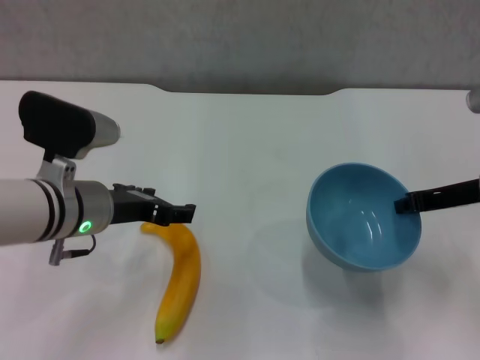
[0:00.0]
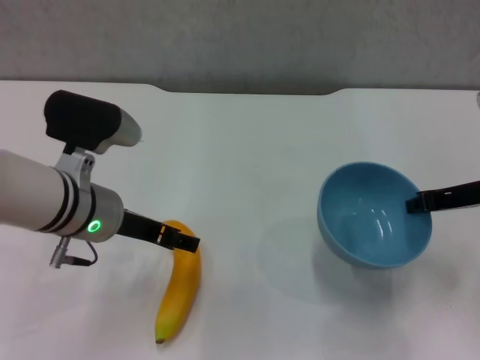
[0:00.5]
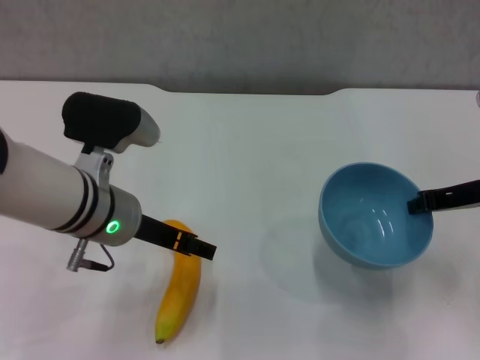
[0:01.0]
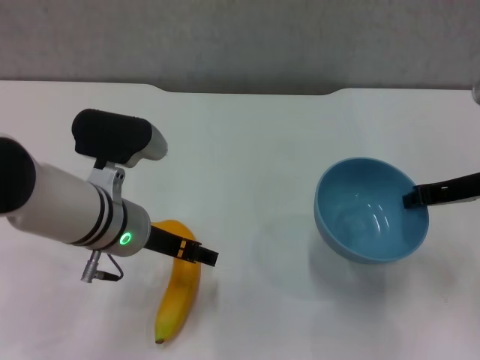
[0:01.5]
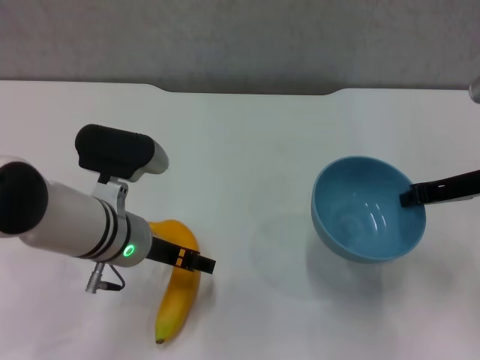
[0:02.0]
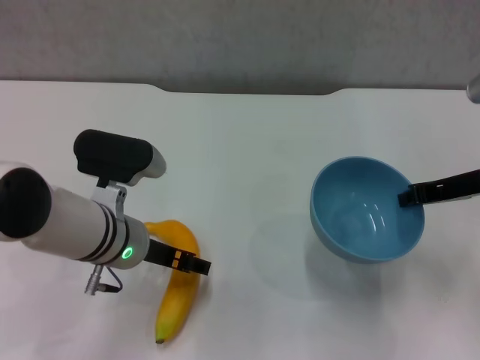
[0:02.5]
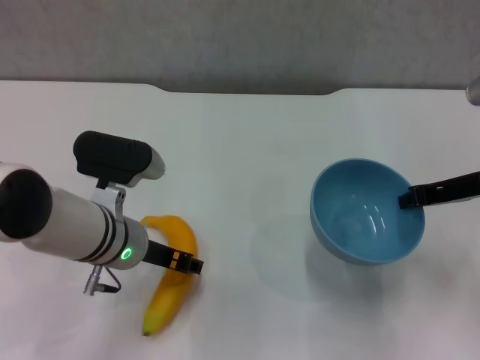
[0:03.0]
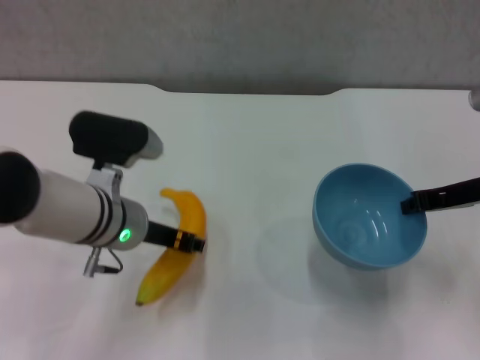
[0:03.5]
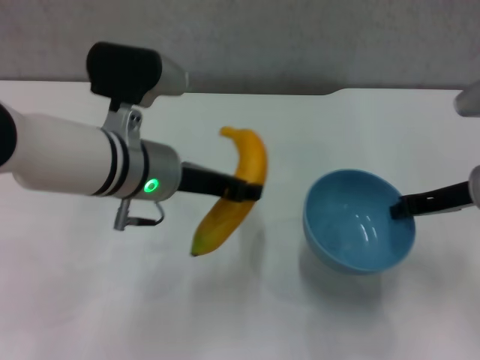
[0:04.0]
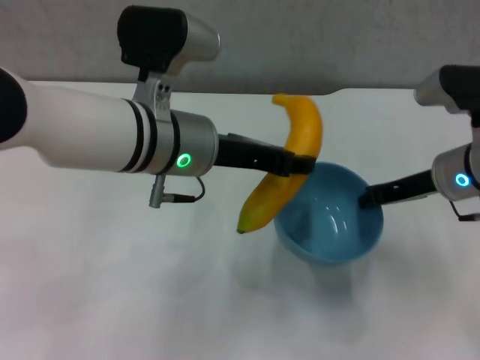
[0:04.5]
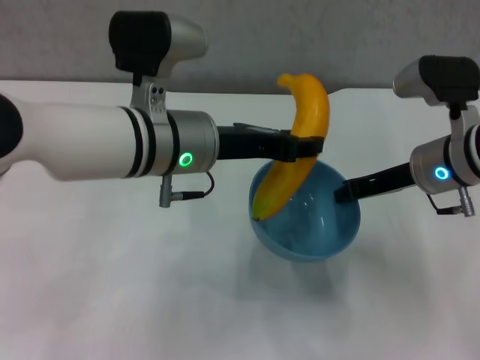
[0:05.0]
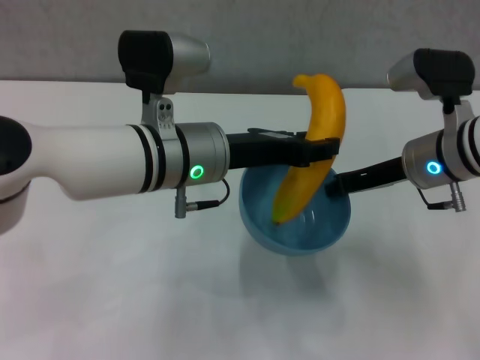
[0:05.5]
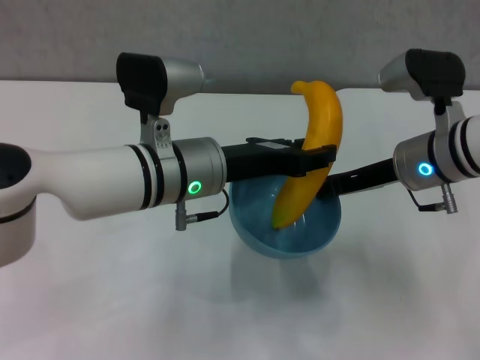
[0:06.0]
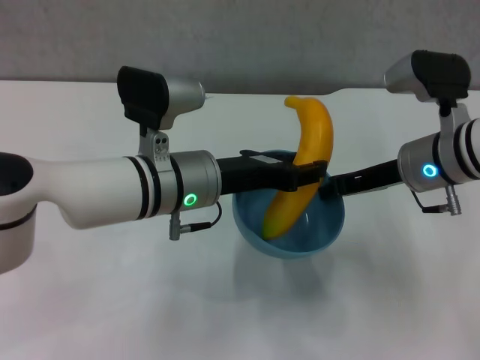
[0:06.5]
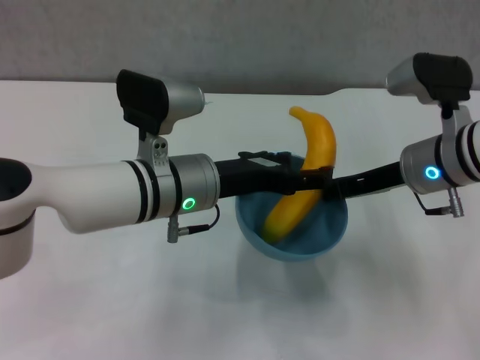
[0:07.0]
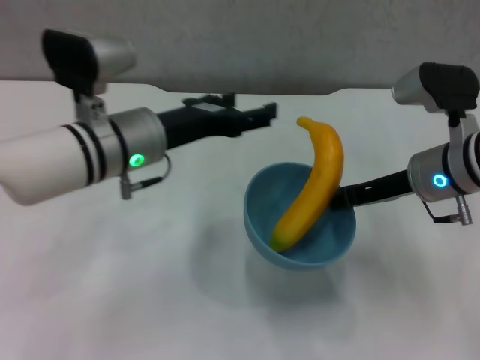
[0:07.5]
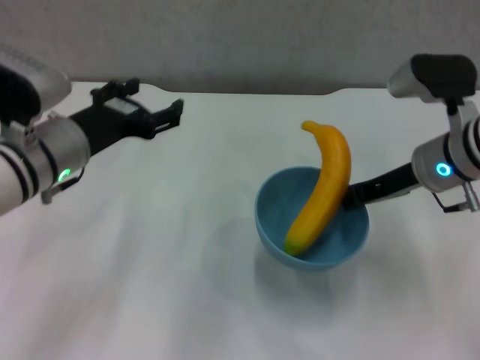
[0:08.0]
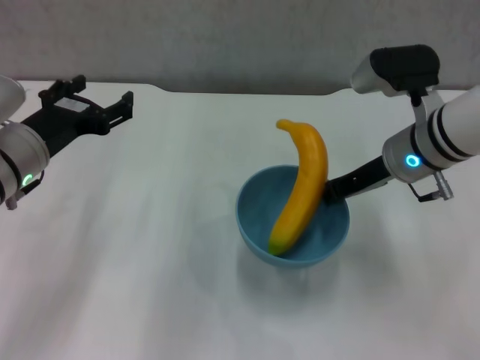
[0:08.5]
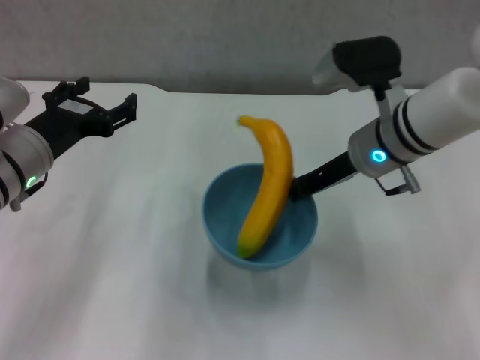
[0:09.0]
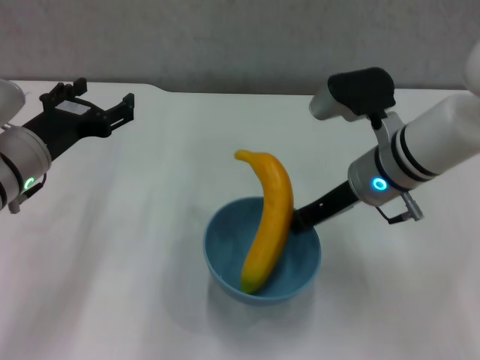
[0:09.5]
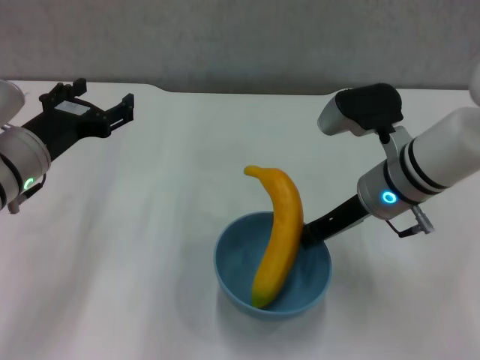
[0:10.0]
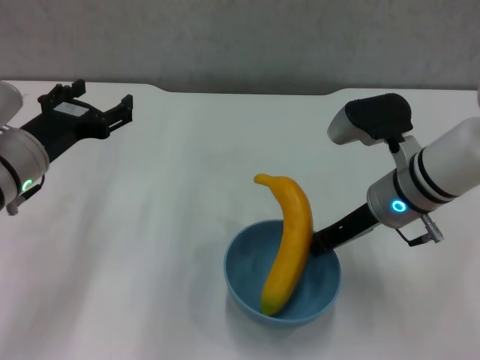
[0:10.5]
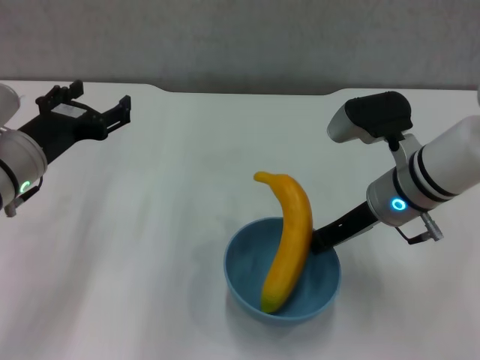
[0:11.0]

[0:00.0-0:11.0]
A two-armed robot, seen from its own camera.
Step, 0:00.0 to 0:03.0: Grasp the banana with left gripper.
Step, 0:03.5 to 0:07.0: Place the banana in the blue bowl with left gripper.
0:00.0 to 0:02.0: There are only small adjustments of the grippers.
0:02.0 to 0:03.5: The left gripper closes up.
0:03.5 to 0:05.5: The right gripper travels to the left by some 10 cm. The left gripper is displaced to the right and upward by about 10 cm.
0:05.5 to 0:07.5: The left gripper moves to the left, some 5 cm, and opens its fingers.
0:07.5 to 0:09.0: The grippers both shift to the left by roughly 10 cm.
0:09.0 to 0:11.0: The right gripper moves some 5 cm.

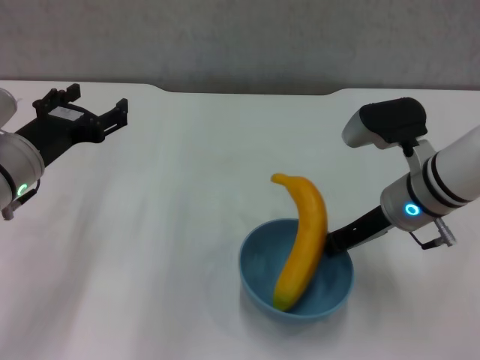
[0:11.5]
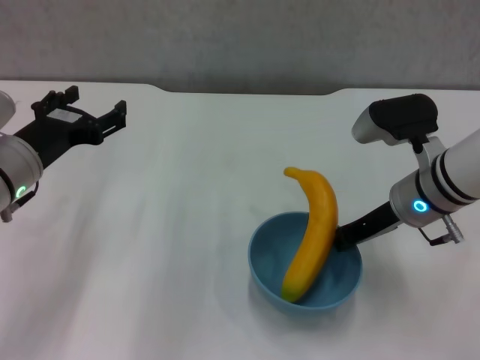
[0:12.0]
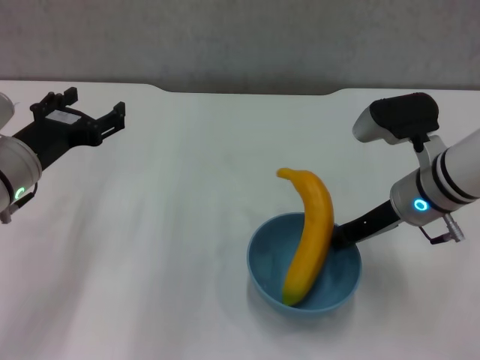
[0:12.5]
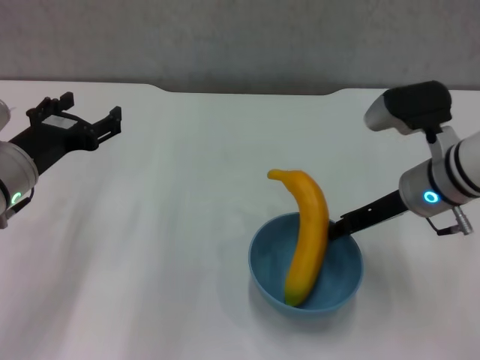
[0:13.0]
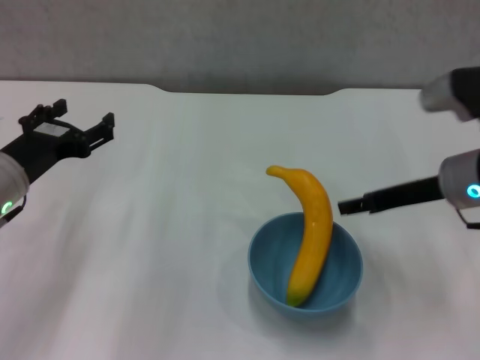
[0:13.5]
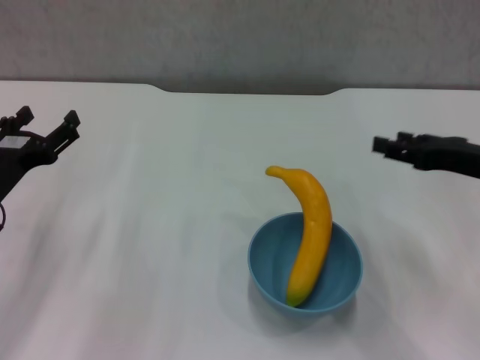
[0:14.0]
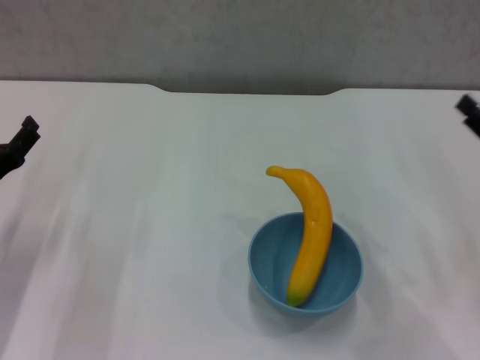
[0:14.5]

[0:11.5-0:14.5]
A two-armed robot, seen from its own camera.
Step, 0:11.5 to 0:13.5: Place the bowl on the table with right gripper.
0:11.5 to 0:13.0: The right gripper opens up.
0:13.0 to 0:14.5: The right gripper heads to the right and backward, covering roughly 15 cm, and opens its fingers. The left gripper shifts about 10 cm to the left and downward.
